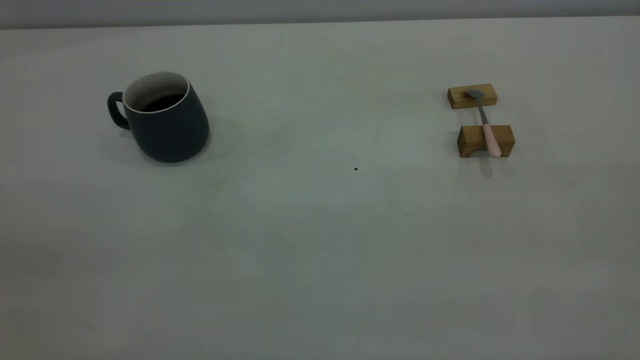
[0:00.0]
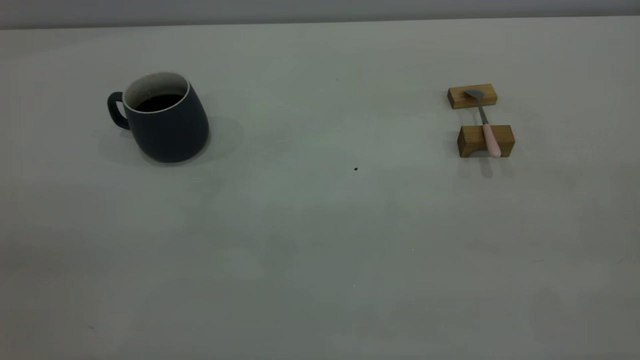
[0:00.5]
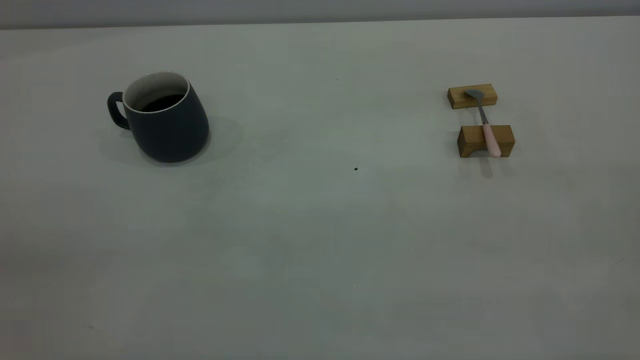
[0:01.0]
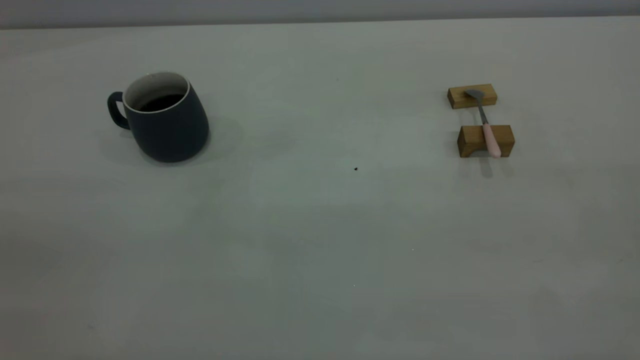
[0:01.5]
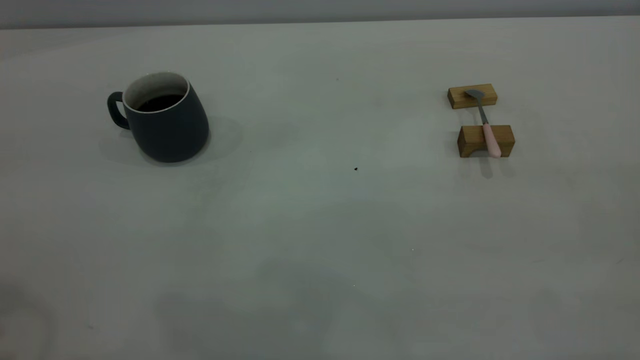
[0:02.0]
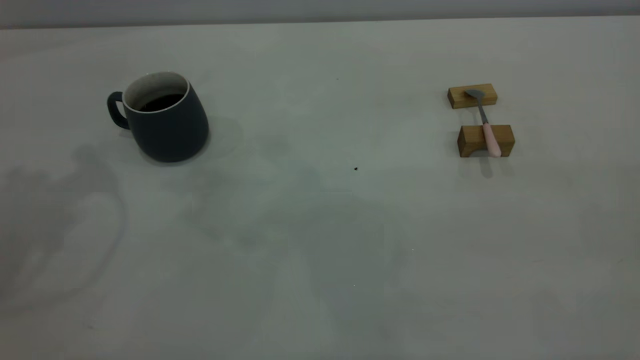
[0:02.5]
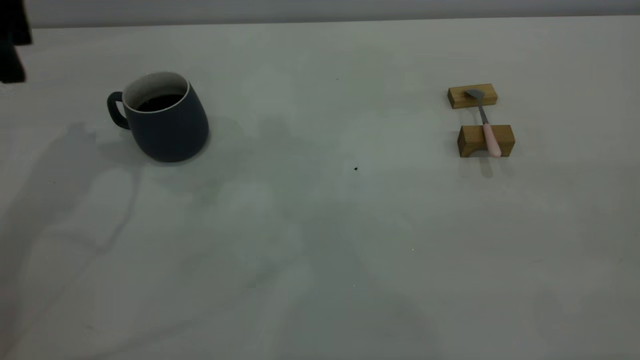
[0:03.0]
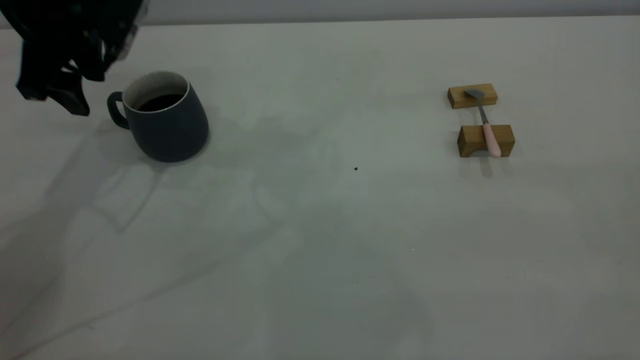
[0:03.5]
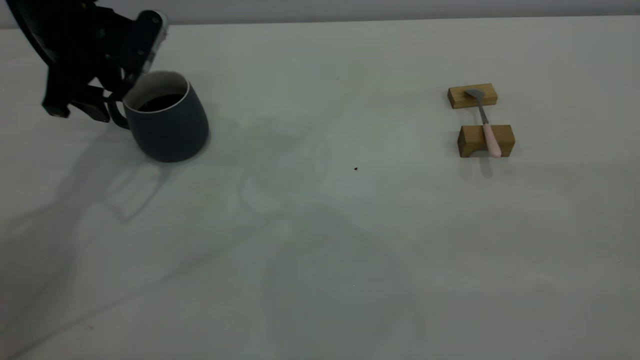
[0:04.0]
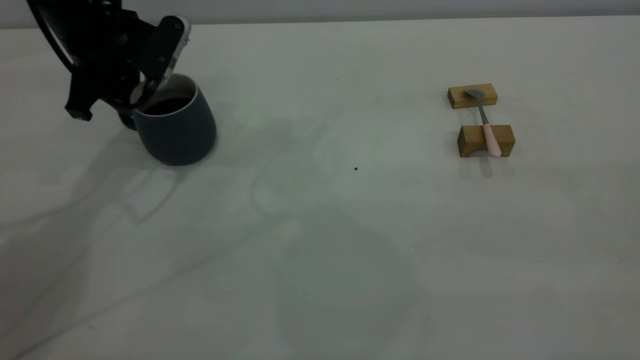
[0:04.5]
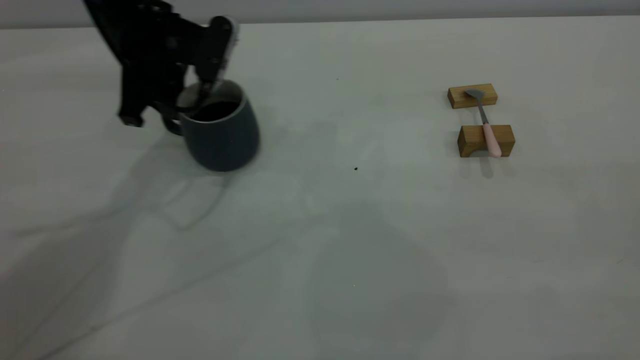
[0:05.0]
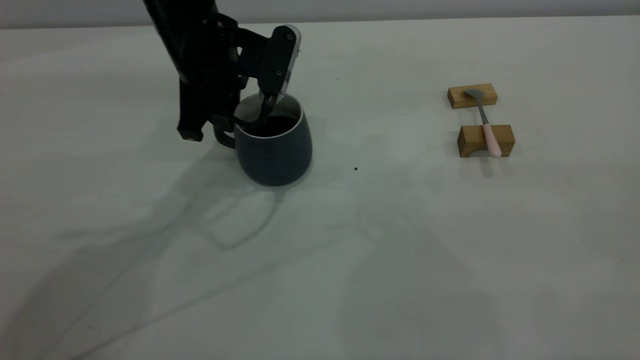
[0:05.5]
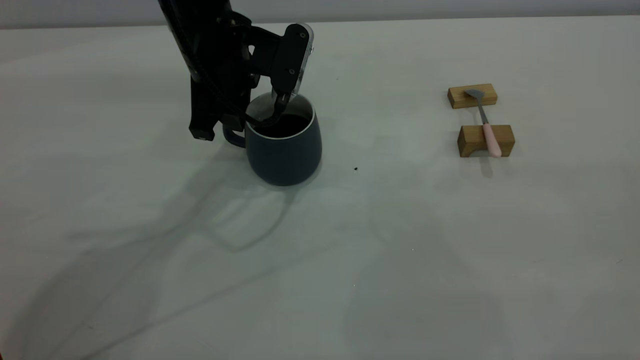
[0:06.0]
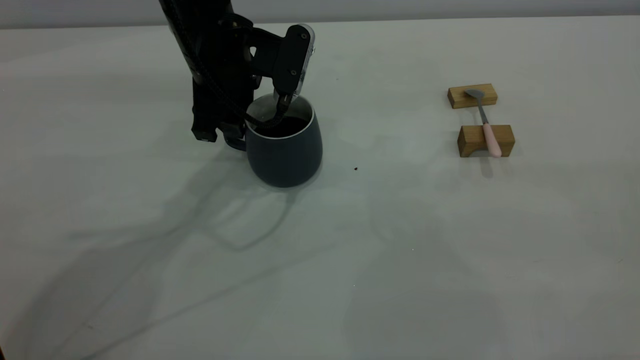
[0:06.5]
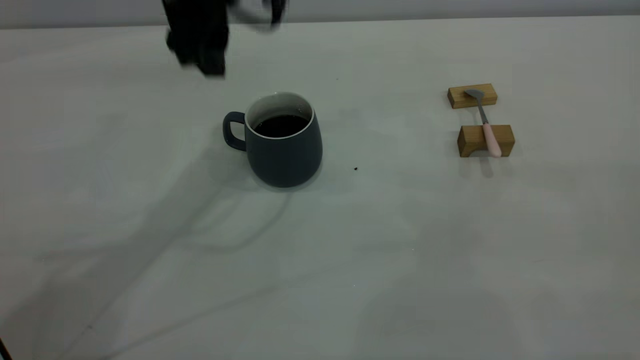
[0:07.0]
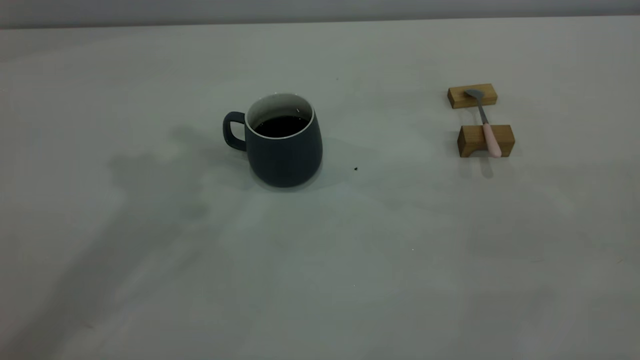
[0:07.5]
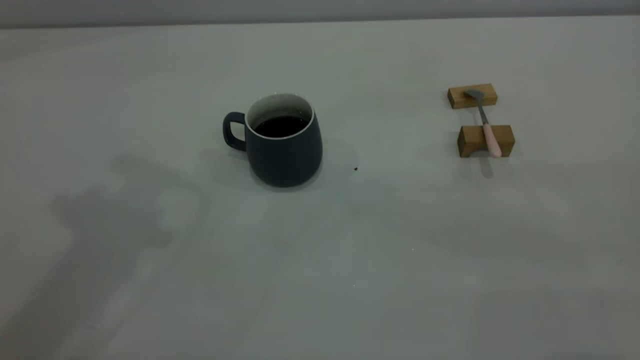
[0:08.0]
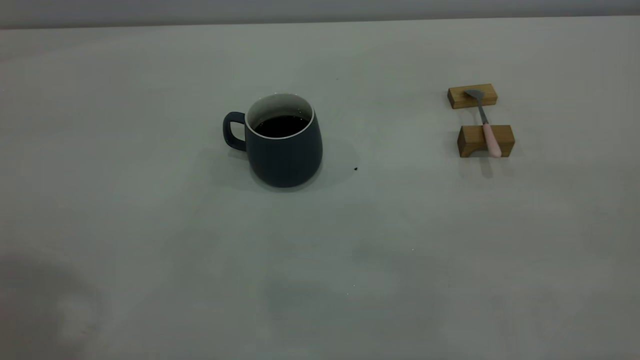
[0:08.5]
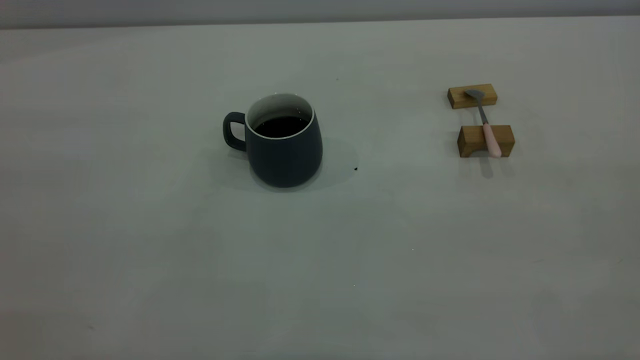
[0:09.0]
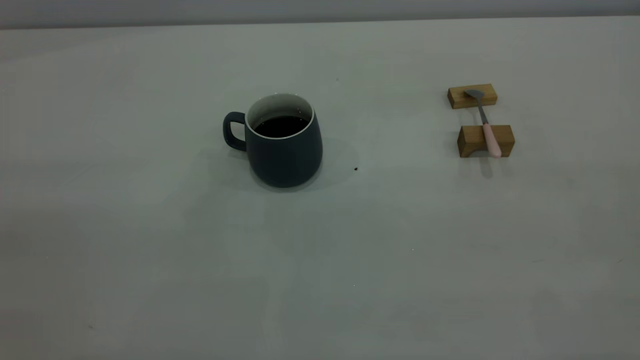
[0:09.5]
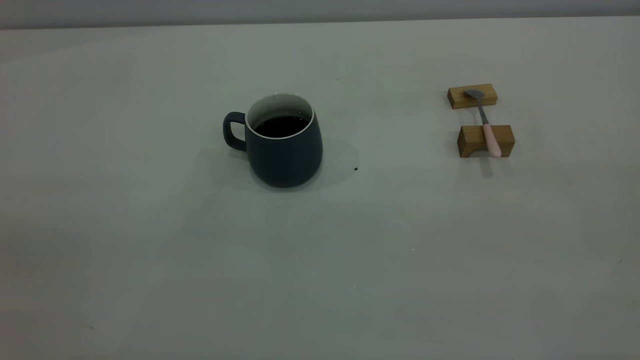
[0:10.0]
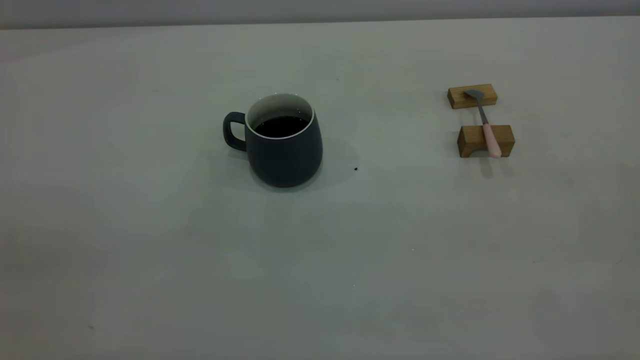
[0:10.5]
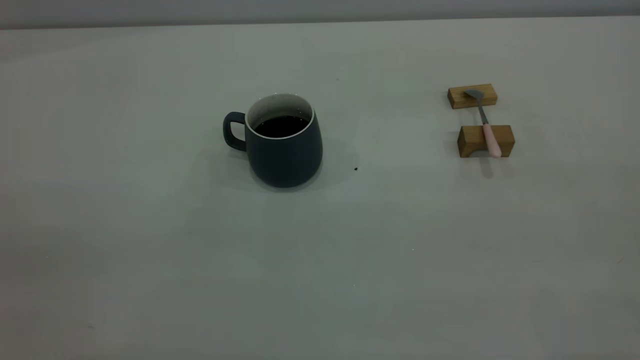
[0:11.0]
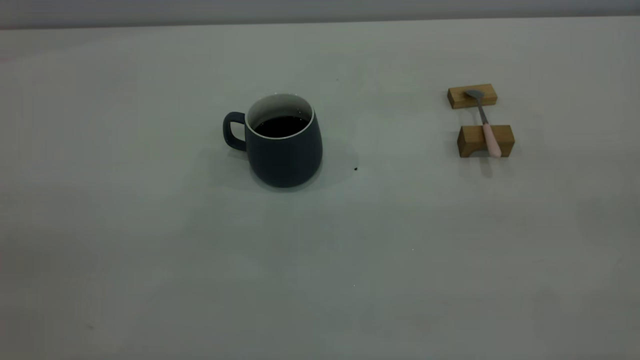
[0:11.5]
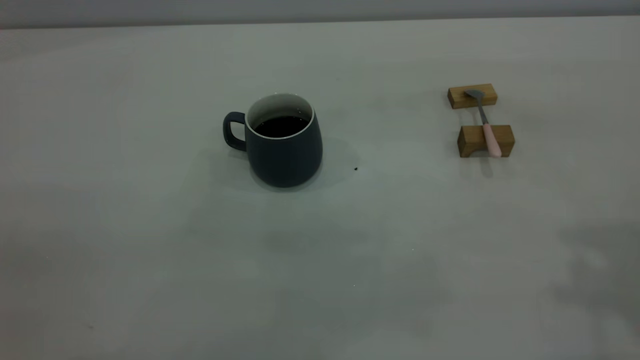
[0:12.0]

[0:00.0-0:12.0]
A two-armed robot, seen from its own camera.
Step, 0:00.0 to 0:07.0: Move the cup with coffee to the center of view.
0:02.0 to 0:04.0: The left gripper shifts some 35 cm forward and downward.
0:04.0 to 0:06.0: The left gripper goes about 15 cm to the right, and closes its fingers.
0:06.0 to 0:08.0: The left gripper heads upward and backward, covering roughly 35 cm, and opens its fingers.

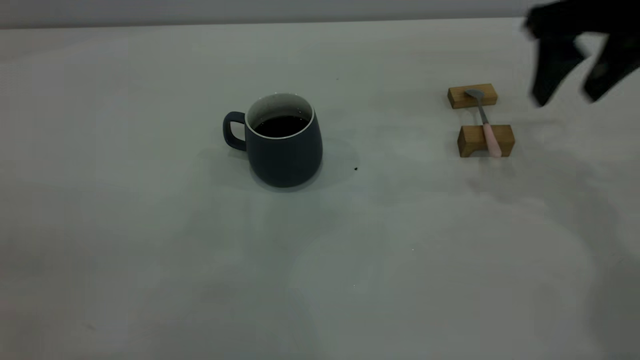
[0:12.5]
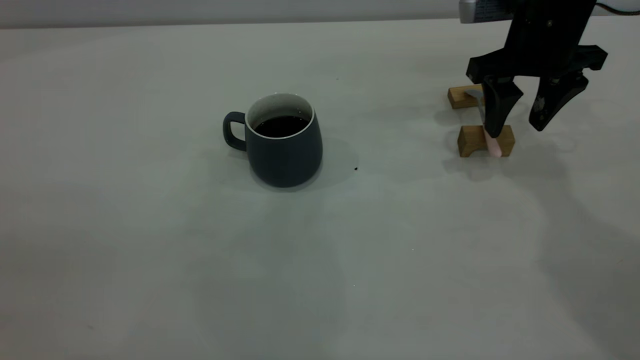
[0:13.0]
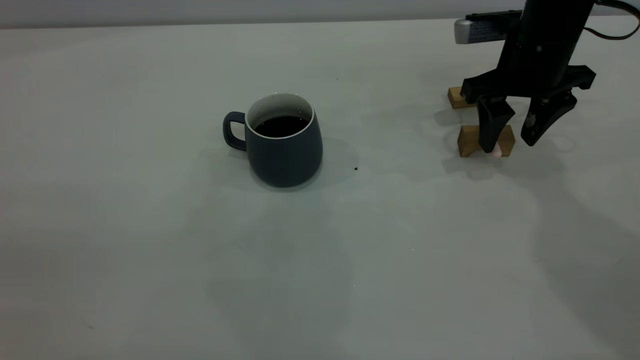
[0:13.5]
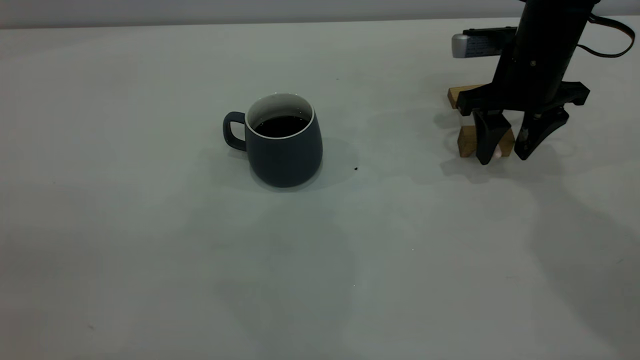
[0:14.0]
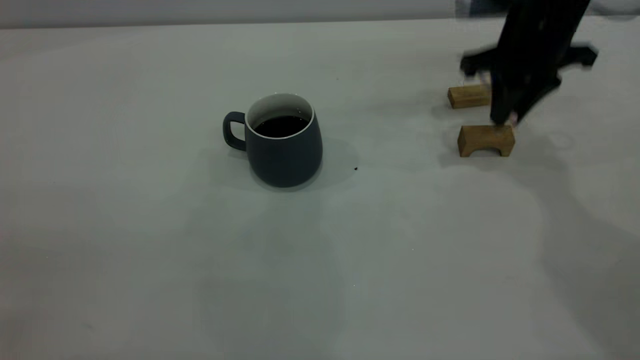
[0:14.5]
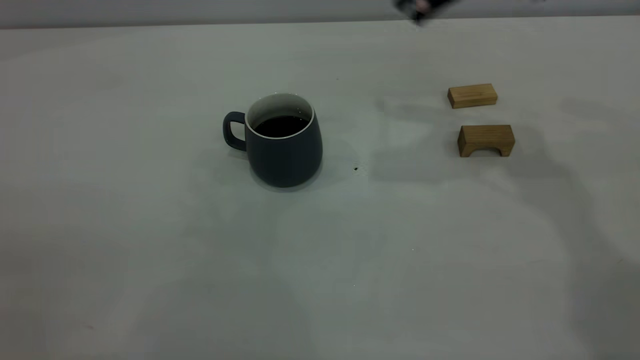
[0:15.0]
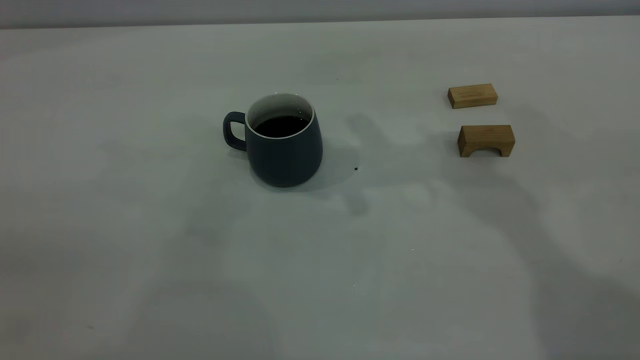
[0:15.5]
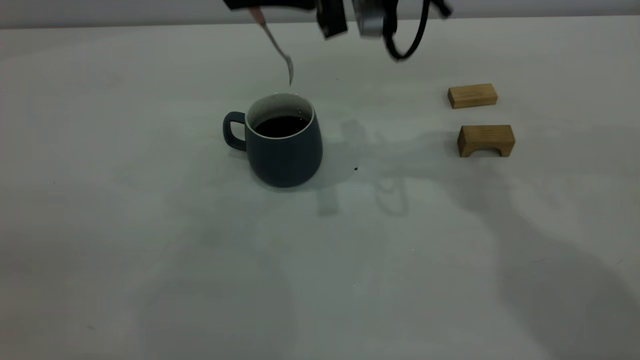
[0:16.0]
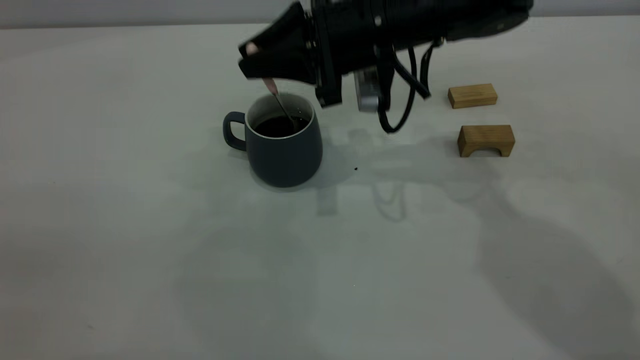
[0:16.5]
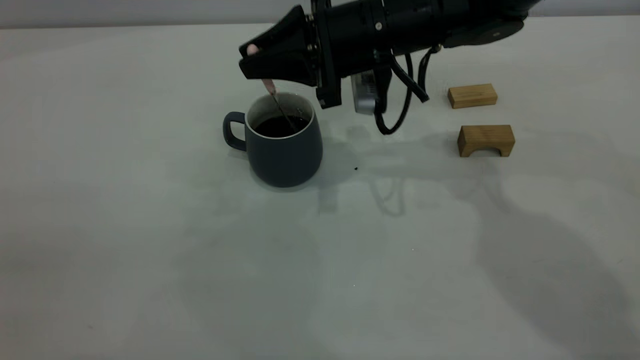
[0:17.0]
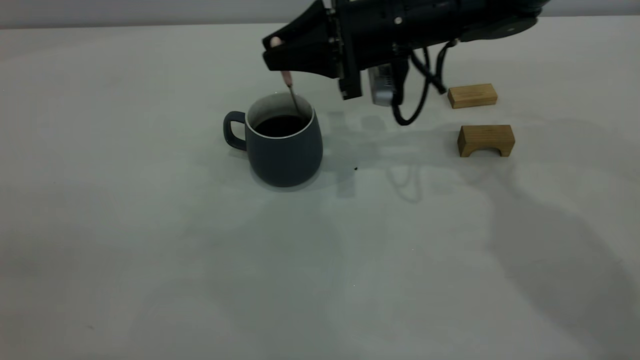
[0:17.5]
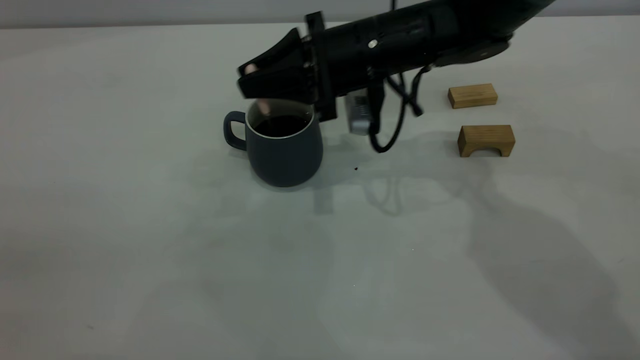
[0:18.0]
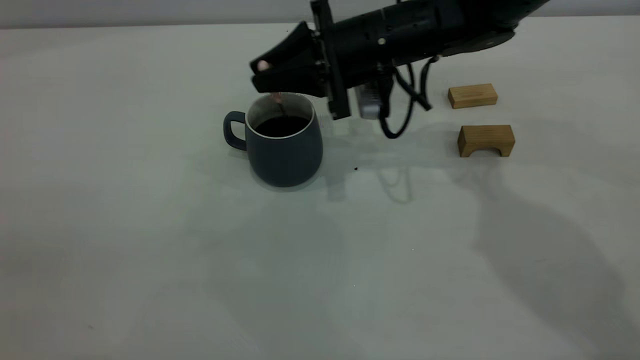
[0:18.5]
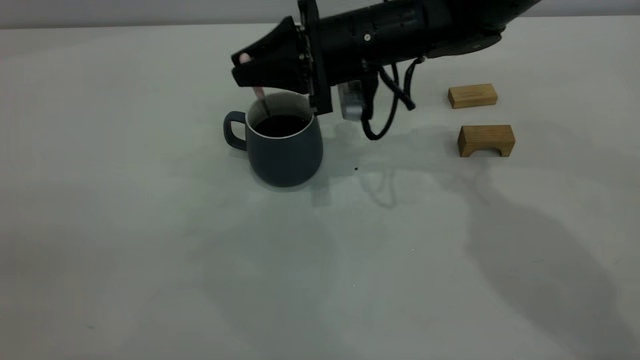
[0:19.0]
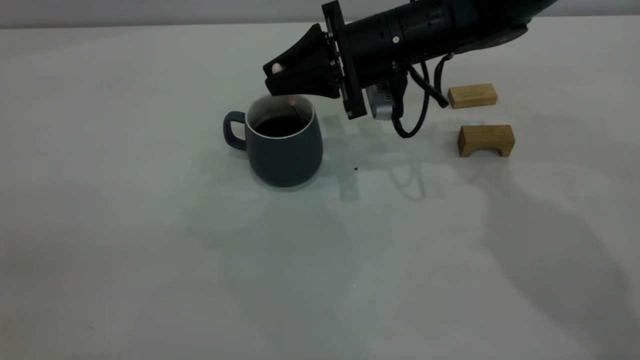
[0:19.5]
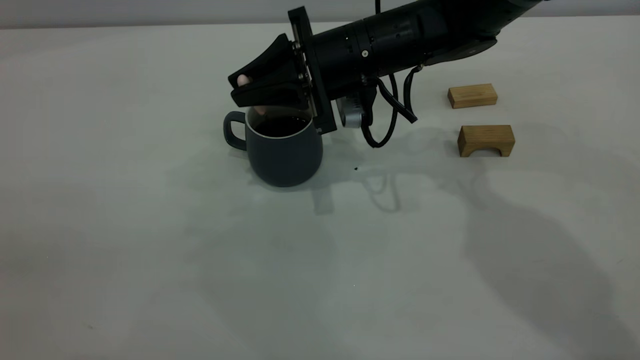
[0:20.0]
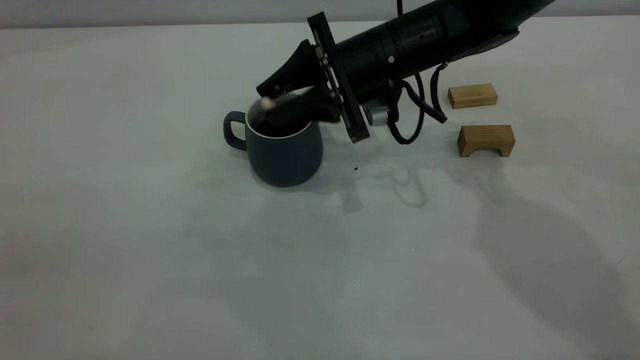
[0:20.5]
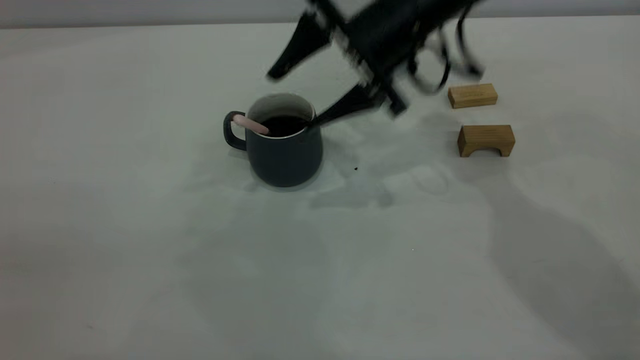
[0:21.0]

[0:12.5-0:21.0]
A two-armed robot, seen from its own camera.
Step, 0:12.5 to 0:14.5: Pick up the spoon.
Step, 0:15.0 to 0:21.0: Stir the coffee in the cup.
0:12.5 to 0:14.5: The right gripper travels downward and back again, some 10 cm each way, and closes.
0:14.5 to 0:16.5: The right gripper moves to the left, approximately 15 cm, and goes upward and returns, roughly 15 cm each way.
0:16.5 to 0:19.0: The grippers move only a little.
0:19.0 to 0:21.0: The right gripper moves approximately 5 cm, and opens.
